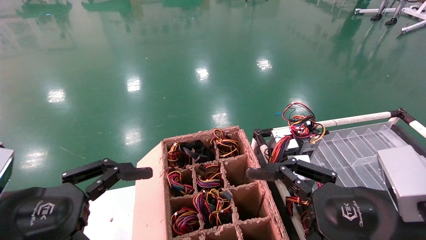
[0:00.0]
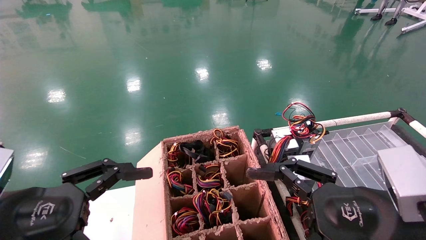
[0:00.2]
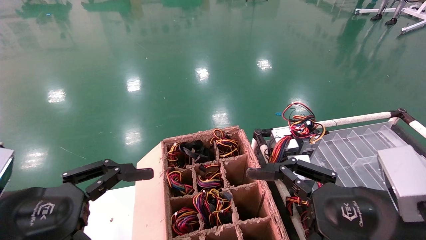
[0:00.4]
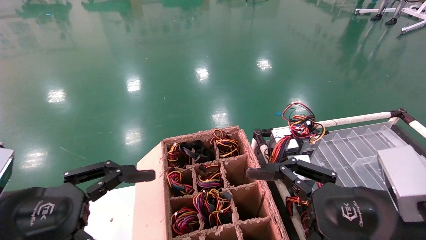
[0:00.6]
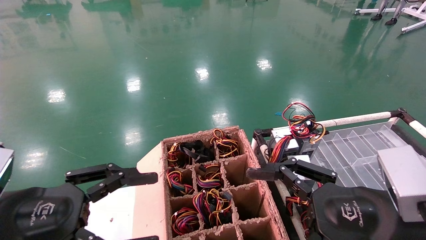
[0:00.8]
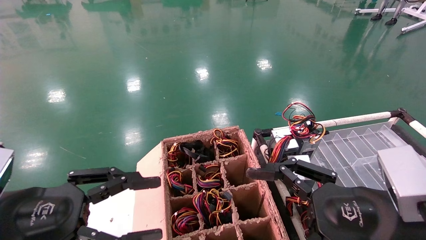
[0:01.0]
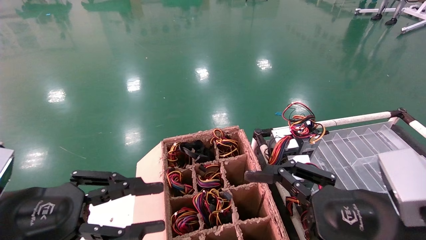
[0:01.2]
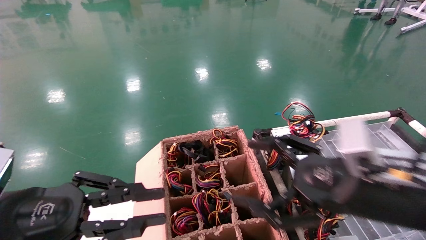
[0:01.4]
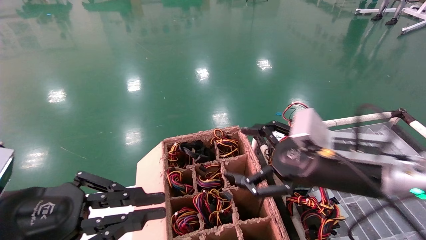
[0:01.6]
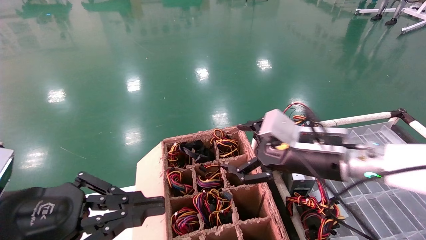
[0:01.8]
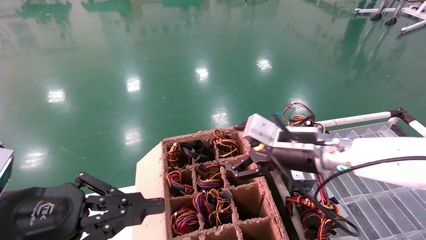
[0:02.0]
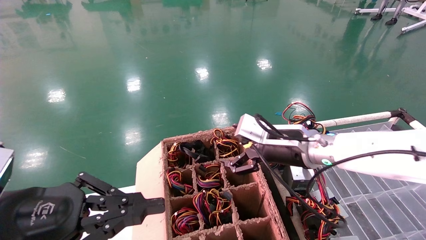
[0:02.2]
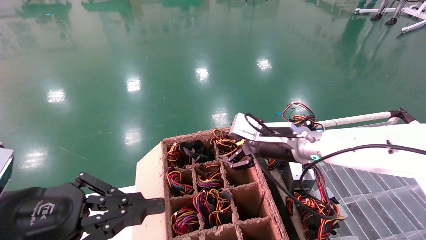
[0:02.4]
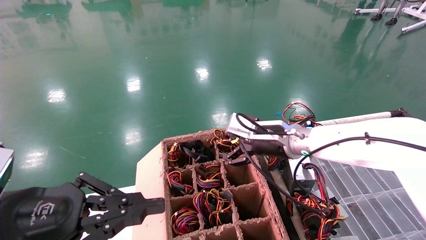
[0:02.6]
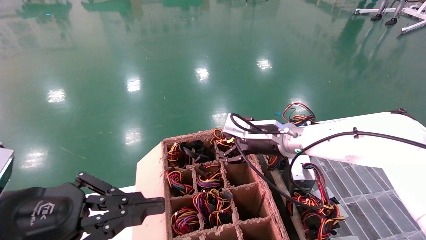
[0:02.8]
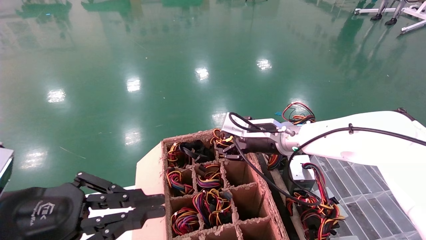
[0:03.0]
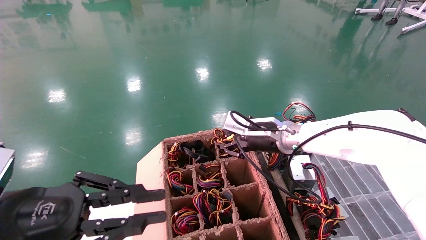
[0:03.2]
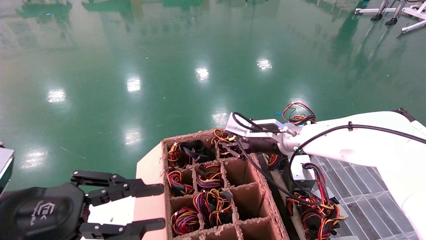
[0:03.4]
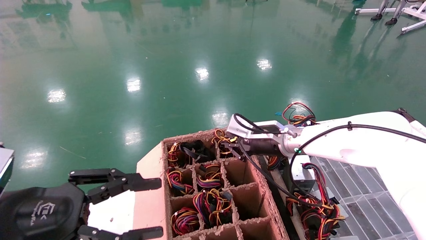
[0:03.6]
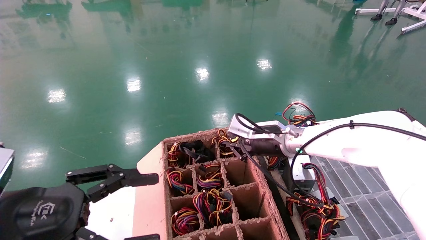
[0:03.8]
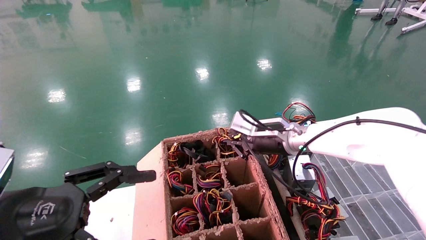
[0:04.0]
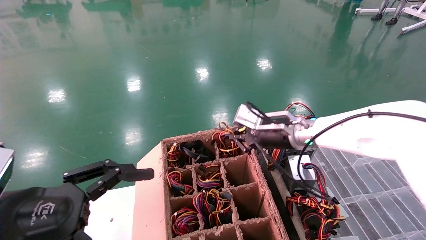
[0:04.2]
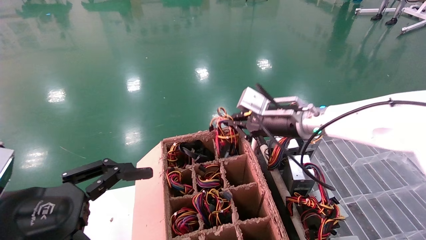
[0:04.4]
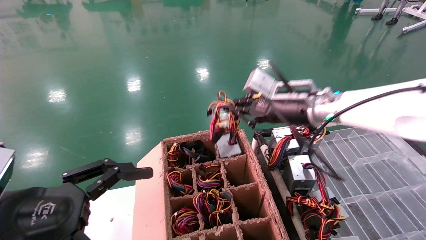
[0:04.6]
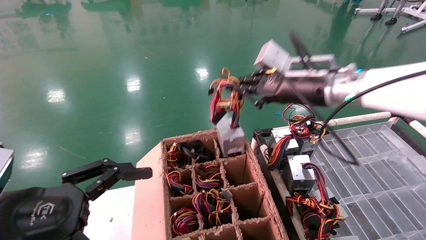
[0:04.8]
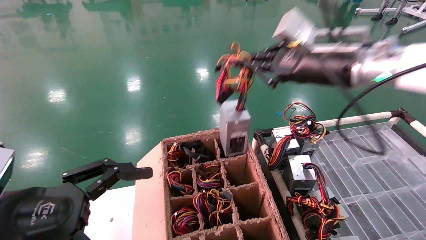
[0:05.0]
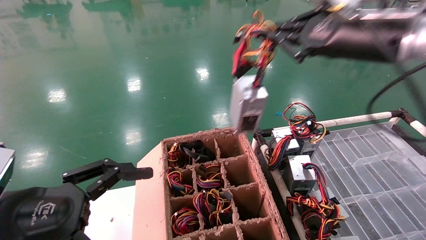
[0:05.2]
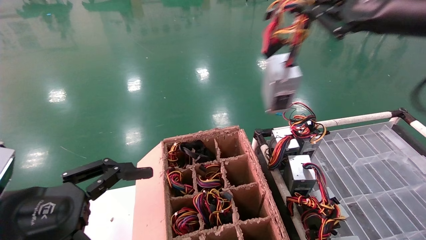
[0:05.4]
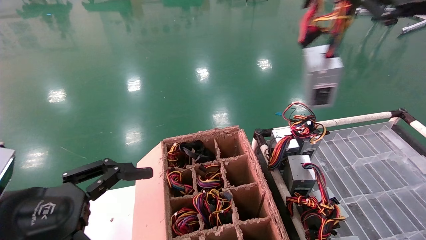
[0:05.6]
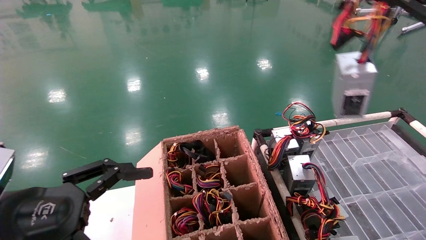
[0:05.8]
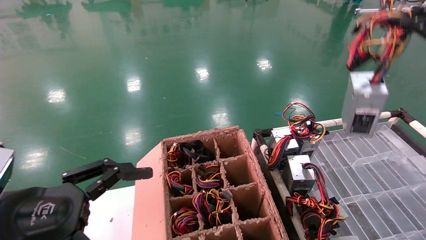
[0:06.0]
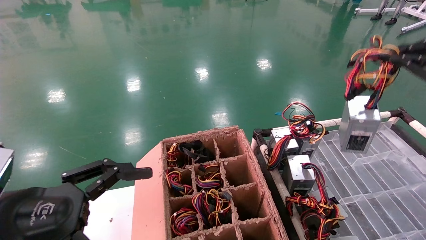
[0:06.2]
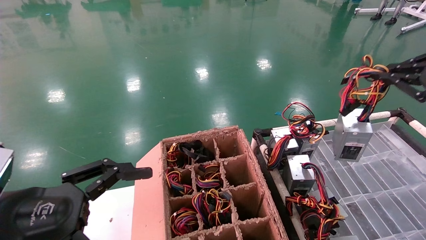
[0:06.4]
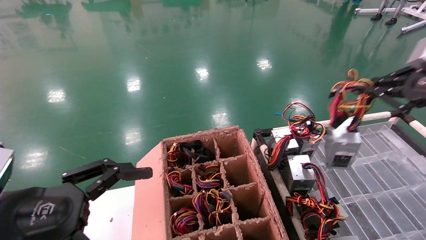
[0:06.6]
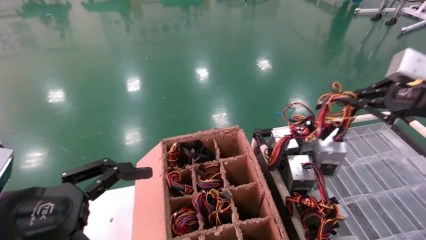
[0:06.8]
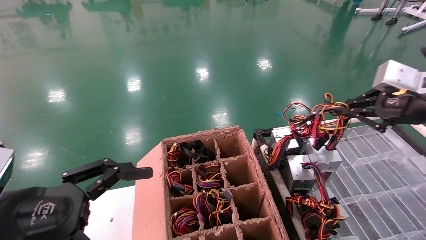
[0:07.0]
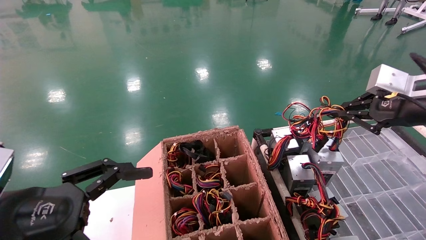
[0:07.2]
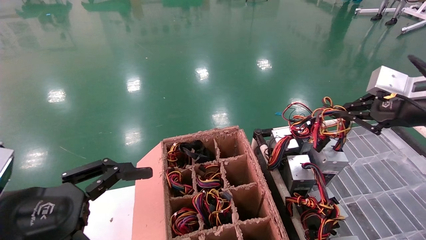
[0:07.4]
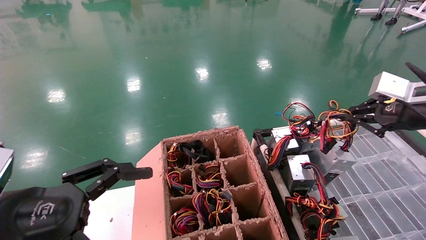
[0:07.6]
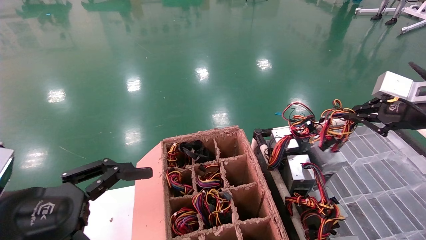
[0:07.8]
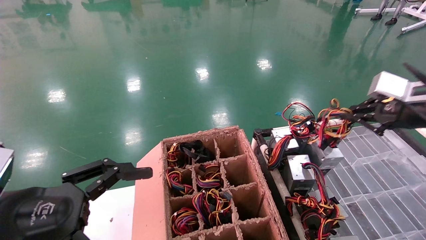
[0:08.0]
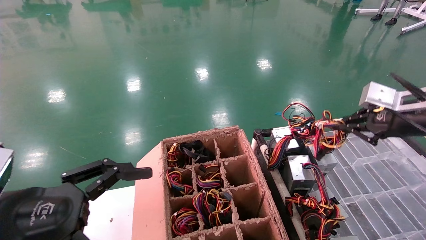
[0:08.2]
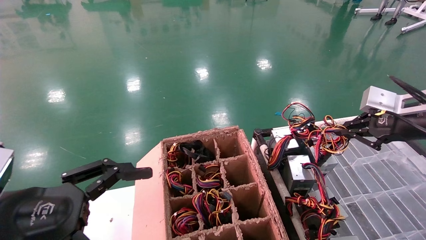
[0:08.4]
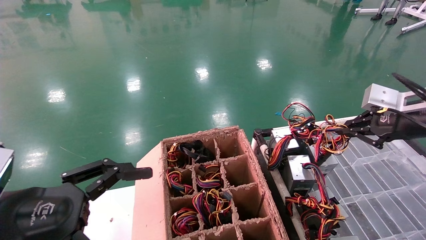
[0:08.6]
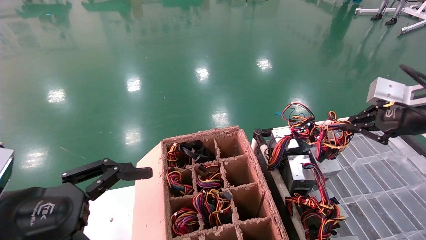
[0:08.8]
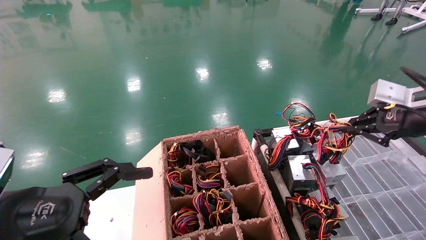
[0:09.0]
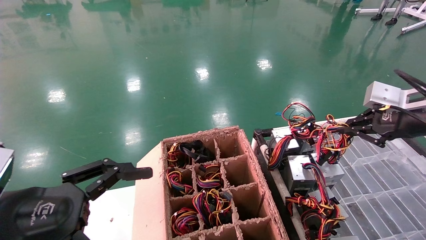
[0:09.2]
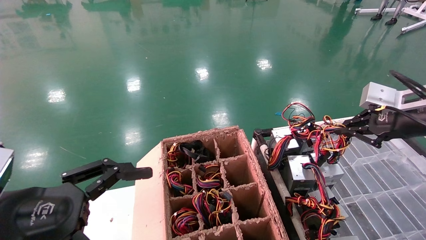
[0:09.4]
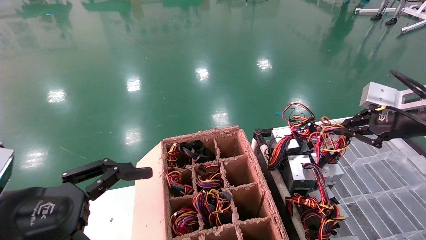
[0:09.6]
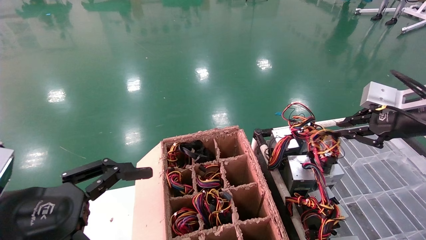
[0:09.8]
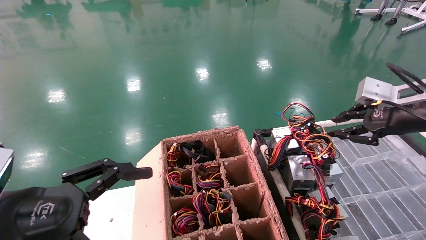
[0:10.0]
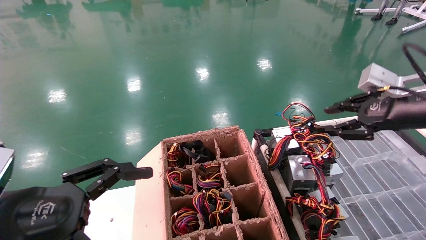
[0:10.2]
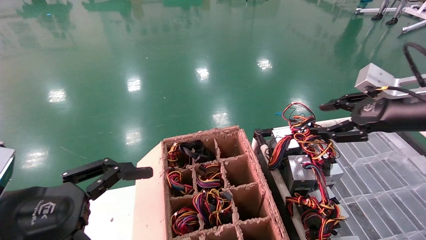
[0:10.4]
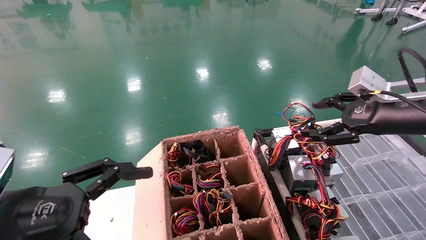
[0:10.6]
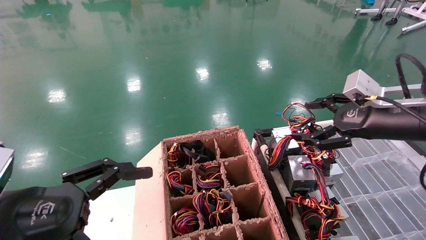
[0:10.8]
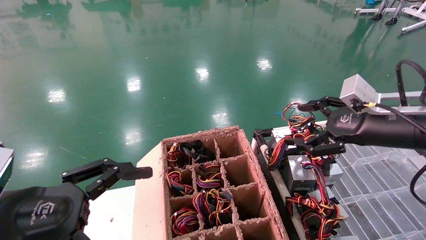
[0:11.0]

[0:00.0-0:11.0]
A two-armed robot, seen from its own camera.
Step, 0:01.0 to 0:04.0: Grab and lift the power supply from the large box.
Step, 0:04.2 to 0:09.8: Place the power supply on the operating table.
0:00.0 to 0:01.6: The left gripper closes its fingers, while the right gripper goes approximately 10 cm forward.
0:01.6 to 0:03.2: The right gripper is displaced forward and to the left by roughly 20 cm, and closes its fingers.
0:03.2 to 0:04.8: The left gripper opens its fingers; the right gripper heads upward, backward and to the right, covering roughly 15 cm, and closes its fingers.
0:04.8 to 0:06.2: The right gripper heads to the right and backward, covering about 25 cm.
0:06.2 to 0:07.8: The right gripper travels forward and downward by roughly 10 cm.
0:07.8 to 0:09.4: The grippers stay close to where they were, moving slightly.
0:09.4 to 0:11.0: The right gripper is displaced to the left by some 5 cm, and opens up.
